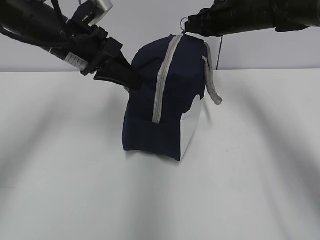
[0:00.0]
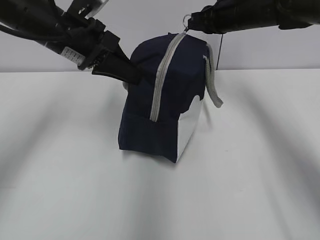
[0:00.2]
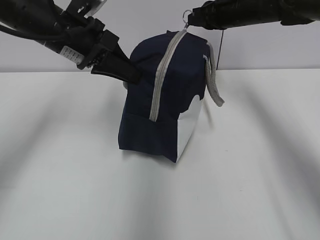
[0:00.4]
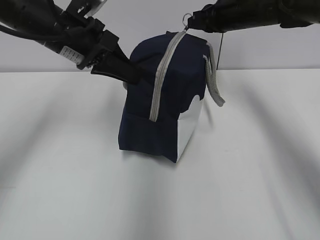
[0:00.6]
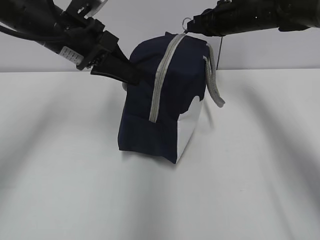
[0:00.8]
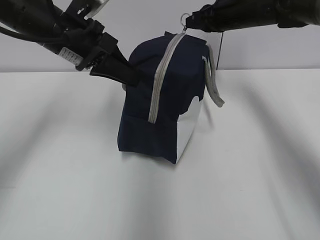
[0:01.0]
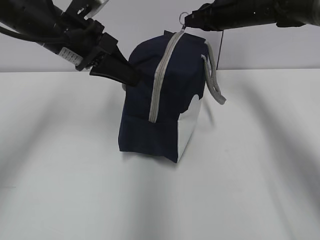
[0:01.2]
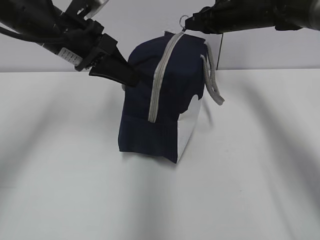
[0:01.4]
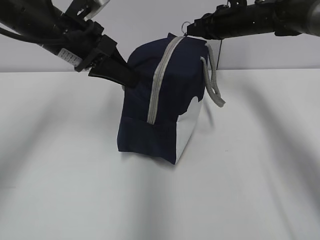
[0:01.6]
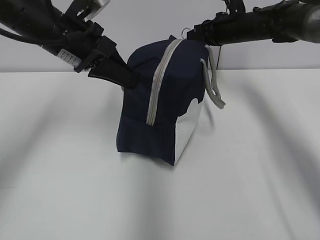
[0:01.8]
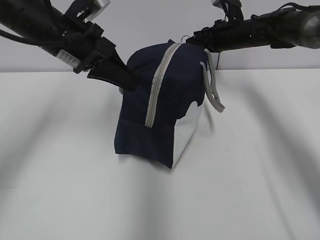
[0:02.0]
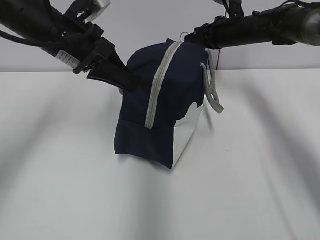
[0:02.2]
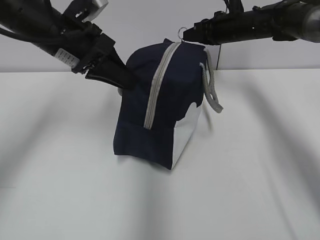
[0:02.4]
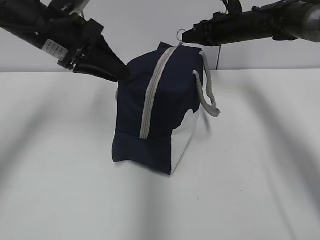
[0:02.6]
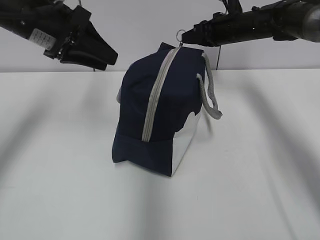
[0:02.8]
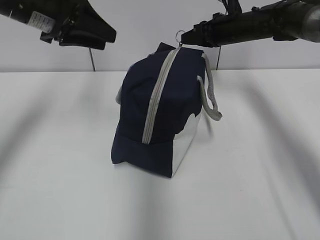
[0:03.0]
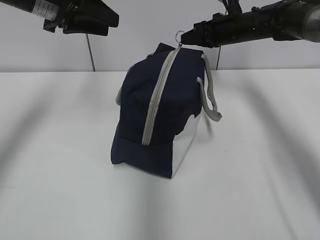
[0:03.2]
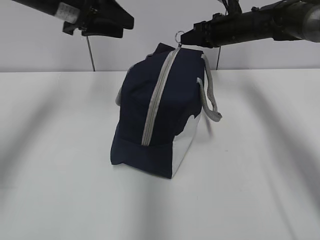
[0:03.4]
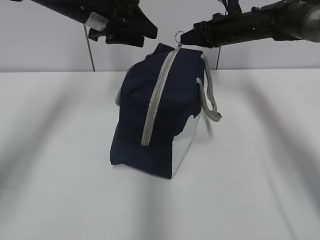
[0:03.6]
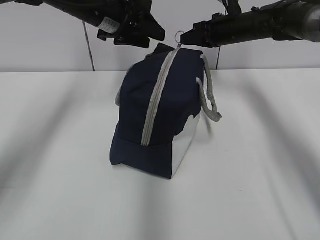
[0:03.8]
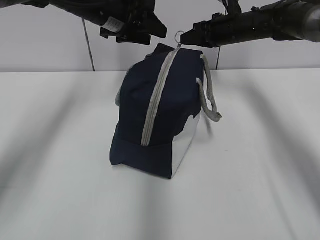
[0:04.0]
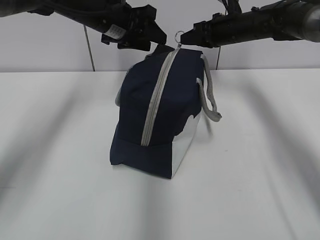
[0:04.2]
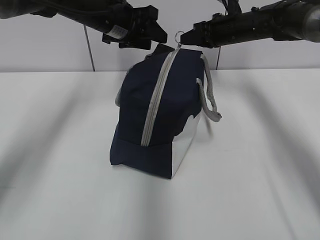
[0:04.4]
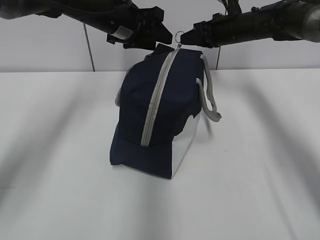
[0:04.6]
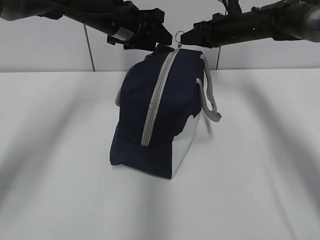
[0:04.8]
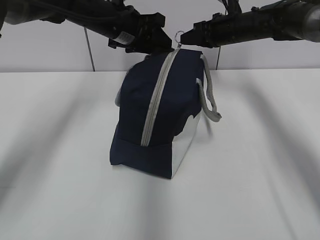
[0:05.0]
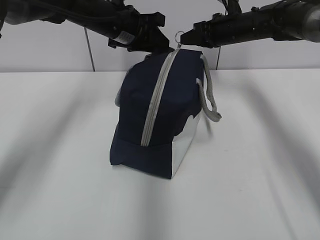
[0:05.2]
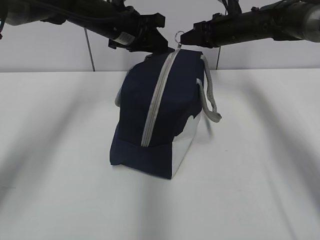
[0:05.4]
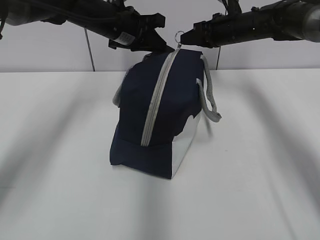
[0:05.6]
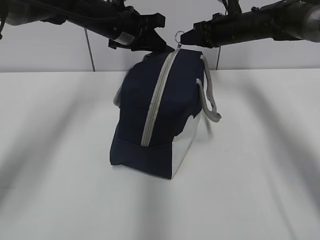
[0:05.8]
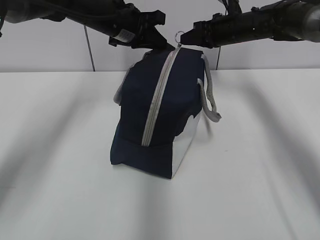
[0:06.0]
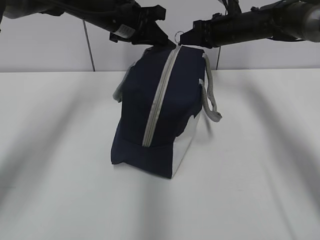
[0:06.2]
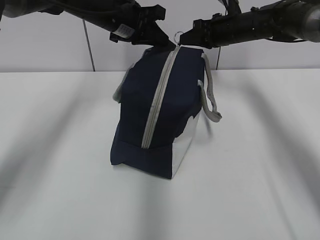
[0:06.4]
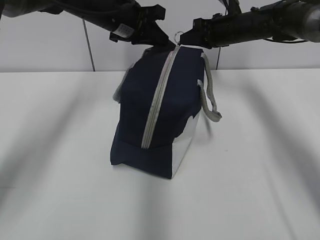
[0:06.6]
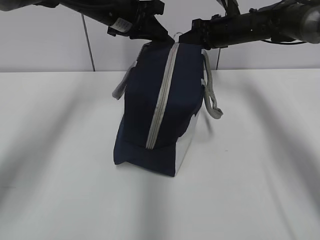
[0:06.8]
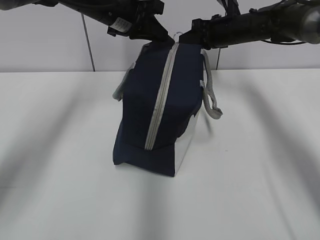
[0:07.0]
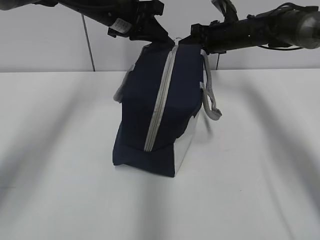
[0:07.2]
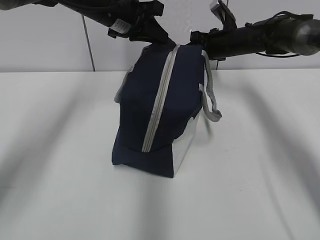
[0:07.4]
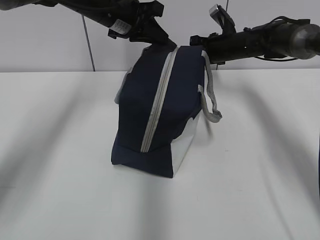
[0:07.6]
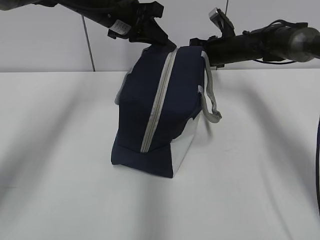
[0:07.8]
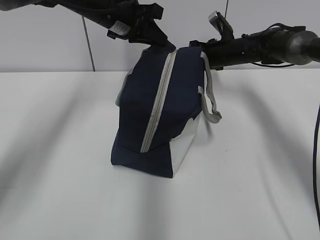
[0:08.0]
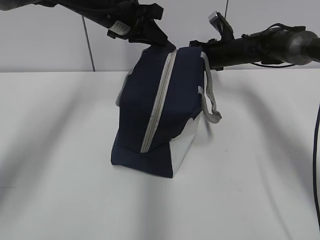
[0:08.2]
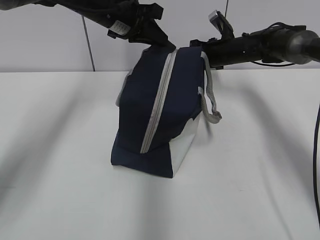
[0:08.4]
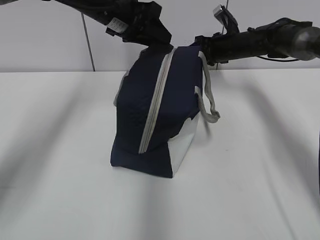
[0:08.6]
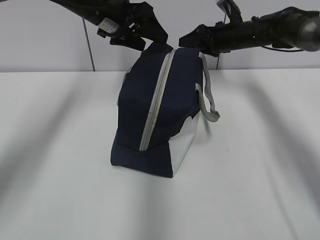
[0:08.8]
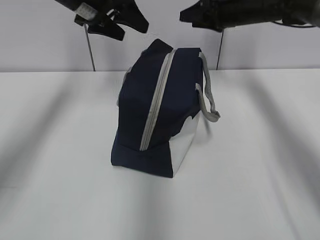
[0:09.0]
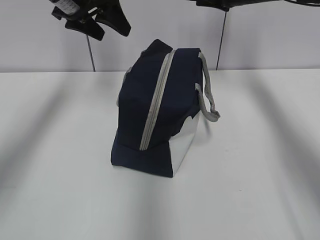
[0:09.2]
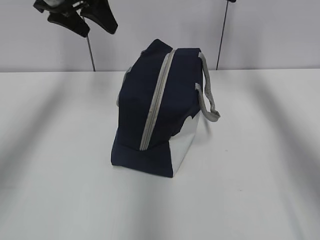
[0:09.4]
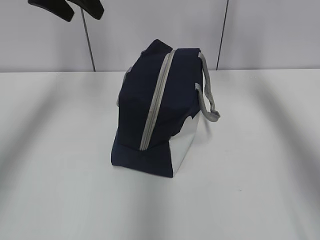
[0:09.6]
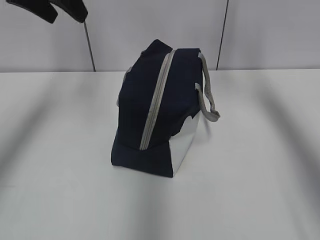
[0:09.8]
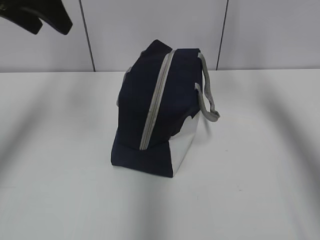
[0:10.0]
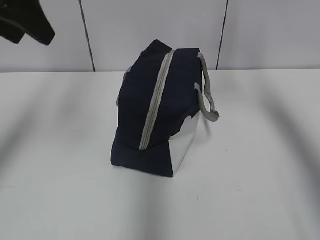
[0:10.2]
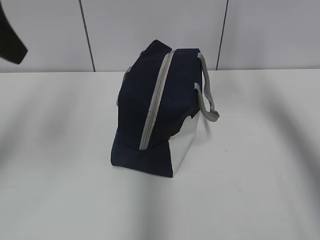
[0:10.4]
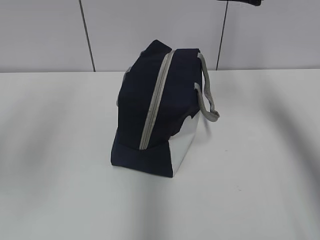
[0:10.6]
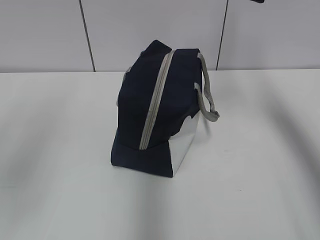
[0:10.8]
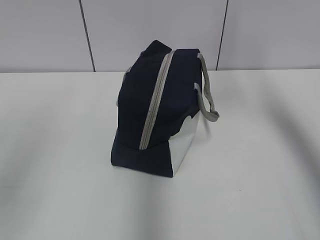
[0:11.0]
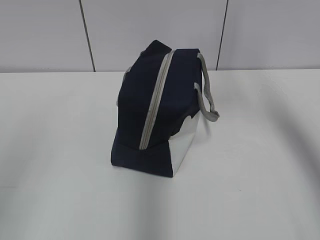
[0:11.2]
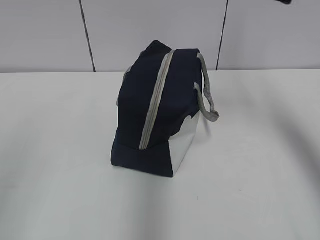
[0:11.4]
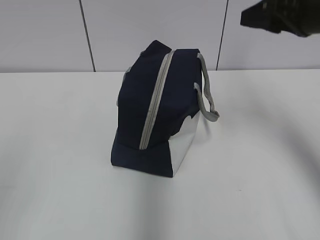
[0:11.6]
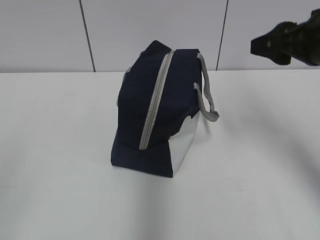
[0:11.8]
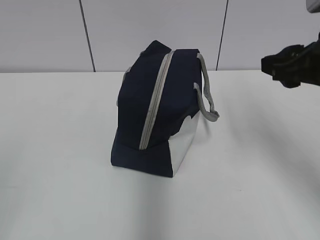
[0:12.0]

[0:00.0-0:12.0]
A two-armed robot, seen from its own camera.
Step, 0:00.0 to 0:02.4: Grab the lunch bag with your left hand.
Step, 0:02.6 to 0:08.2: Pull the zipper with your right hand.
0:00.0 to 0:01.6: The grippers make only small movements.
0:01.6 to 0:03.0: The left gripper moves some 5 cm, and opens up.
0:03.0 to 0:04.4: The left gripper goes approximately 15 cm forward and to the right.
0:04.4 to 0:06.0: The left gripper closes its fingers.
0:06.0 to 0:07.6: There are only small adjustments of the grippers.
0:07.6 to 0:09.0: The right gripper shifts approximately 5 cm upward, and opens its fingers. Meanwhile the left gripper ends up approximately 5 cm from where it was, and opens its fingers.
0:09.0 to 0:10.4: The right gripper moves backward and upward, about 15 cm, while the left gripper heads backward and to the left, covering some 25 cm.
0:10.4 to 0:12.0: The left gripper moves backward and downward, some 25 cm. Meanwhile the right gripper shifts some 15 cm backward and downward.

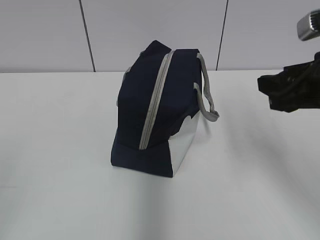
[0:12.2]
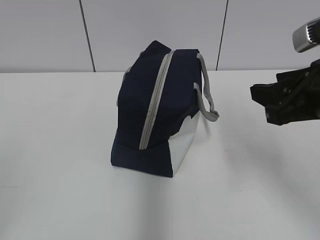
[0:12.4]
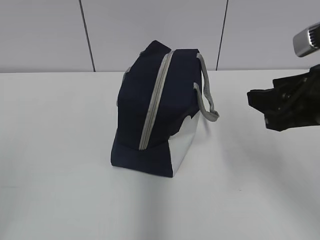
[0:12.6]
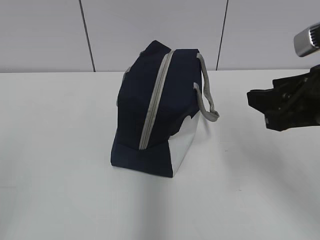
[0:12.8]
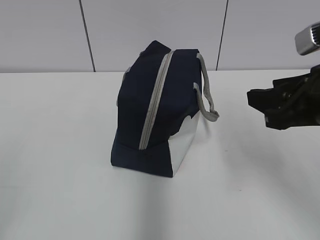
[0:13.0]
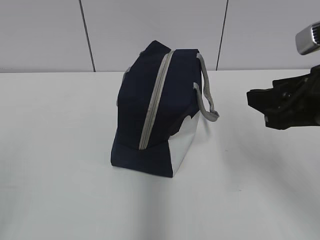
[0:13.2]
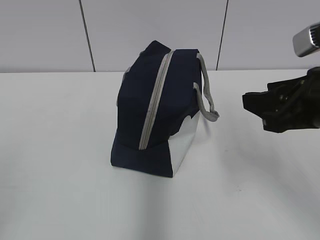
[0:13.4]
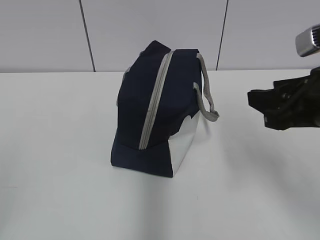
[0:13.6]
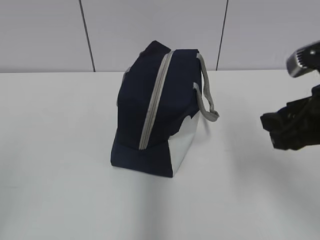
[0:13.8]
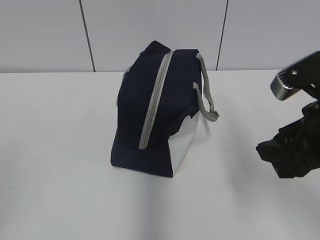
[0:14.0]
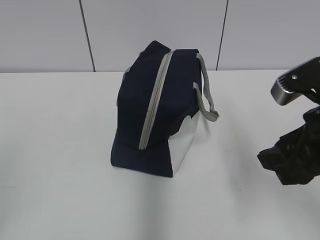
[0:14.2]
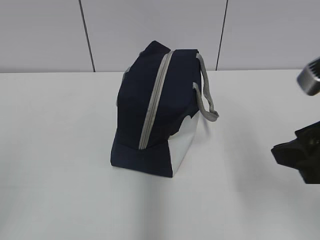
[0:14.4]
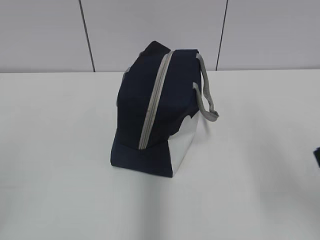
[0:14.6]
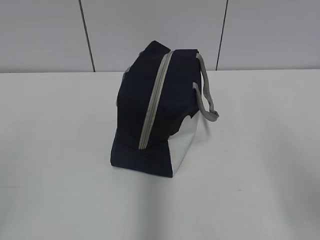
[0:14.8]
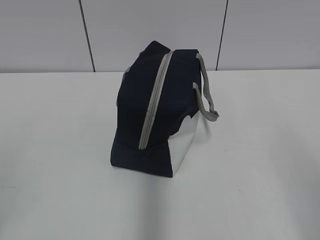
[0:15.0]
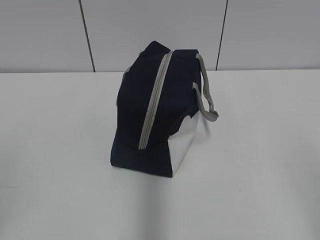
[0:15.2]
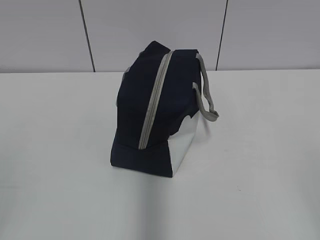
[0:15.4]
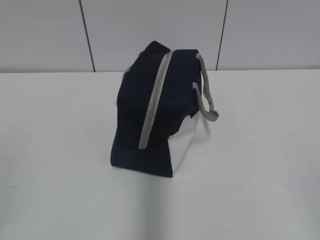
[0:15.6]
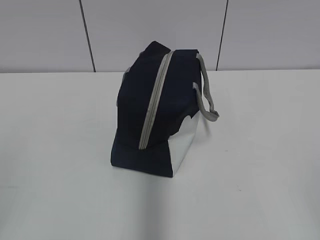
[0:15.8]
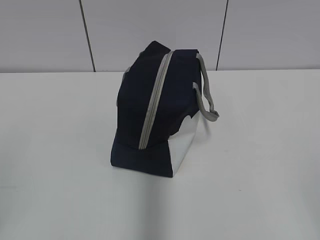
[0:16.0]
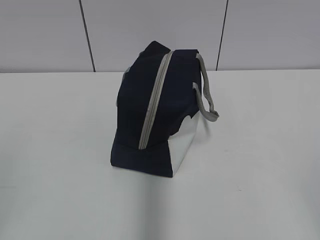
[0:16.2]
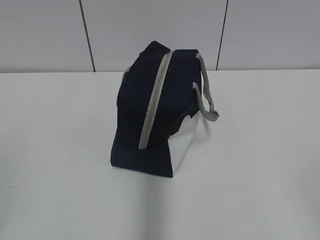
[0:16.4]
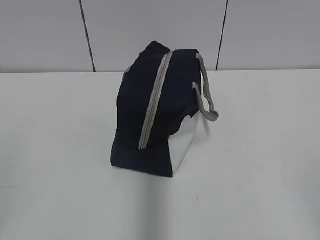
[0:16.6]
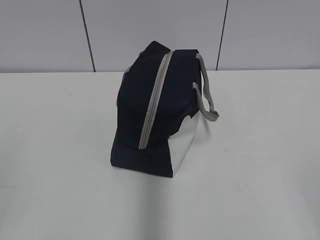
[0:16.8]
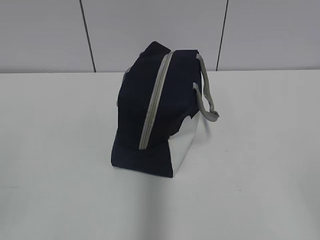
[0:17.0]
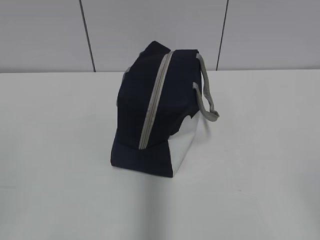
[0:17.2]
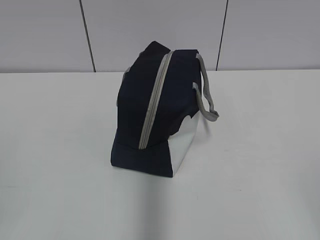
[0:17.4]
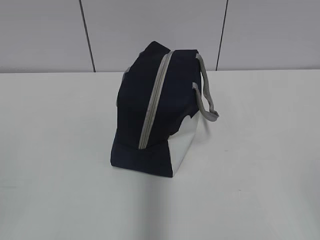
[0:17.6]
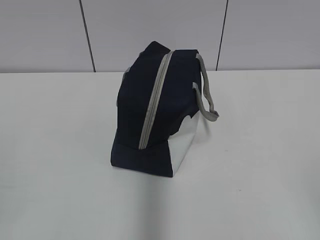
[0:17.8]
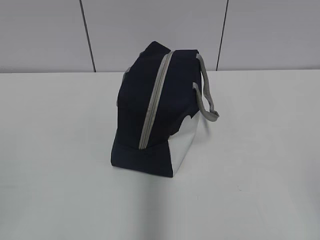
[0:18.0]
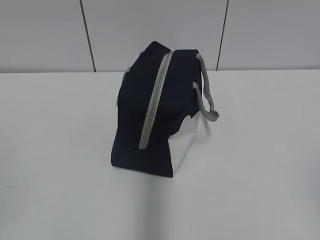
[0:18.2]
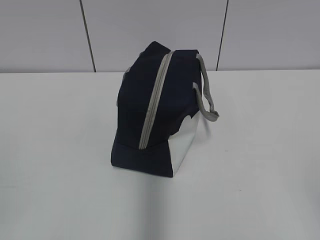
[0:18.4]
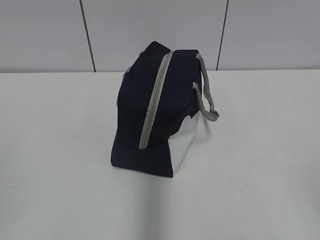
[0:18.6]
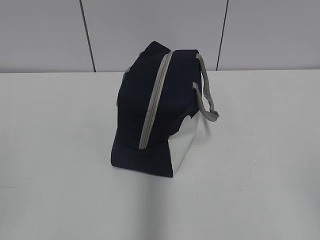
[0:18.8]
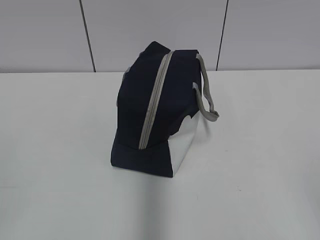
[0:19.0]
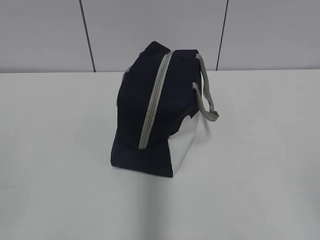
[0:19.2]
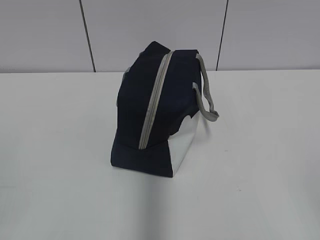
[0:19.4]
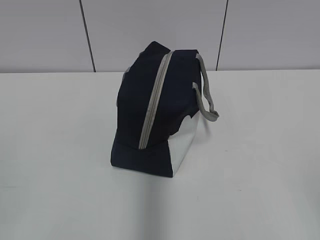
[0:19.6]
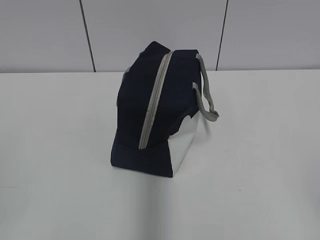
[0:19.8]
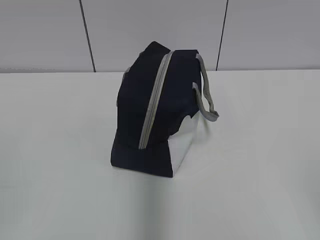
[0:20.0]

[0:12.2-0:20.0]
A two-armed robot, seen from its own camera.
0:12.2 to 0:13.8: There are only small adjustments of the grippers.
0:13.8 to 0:15.4: The right gripper shifts roughly 20 cm backward.
0:18.4 to 0:20.0: Neither gripper changes place.

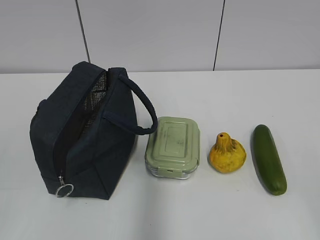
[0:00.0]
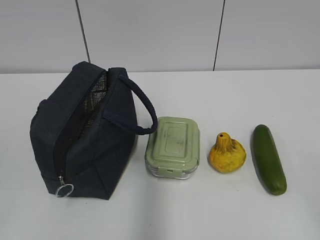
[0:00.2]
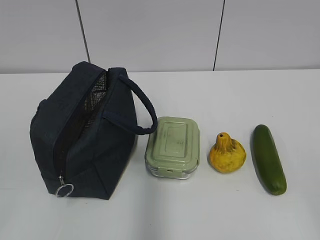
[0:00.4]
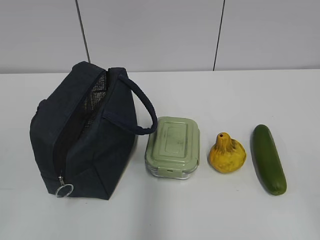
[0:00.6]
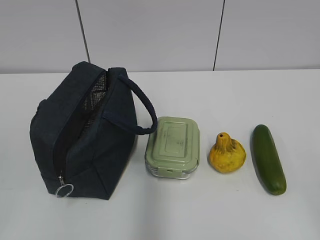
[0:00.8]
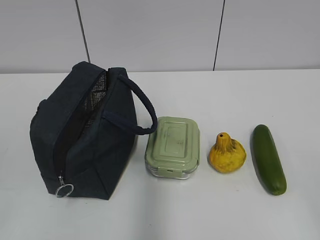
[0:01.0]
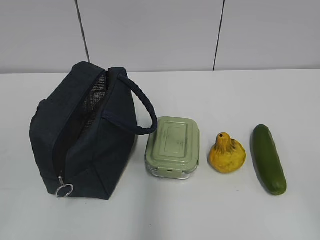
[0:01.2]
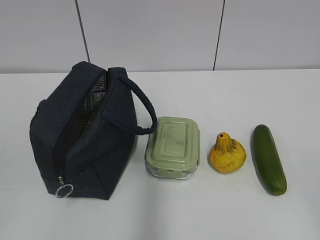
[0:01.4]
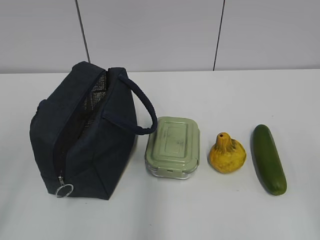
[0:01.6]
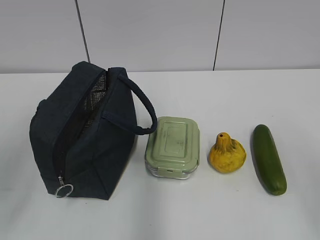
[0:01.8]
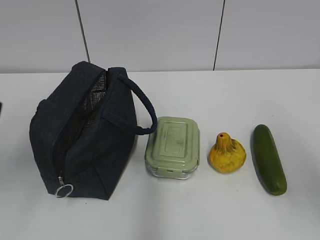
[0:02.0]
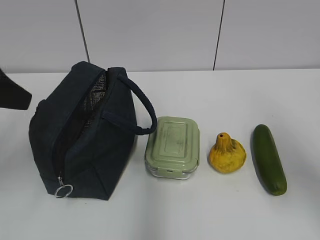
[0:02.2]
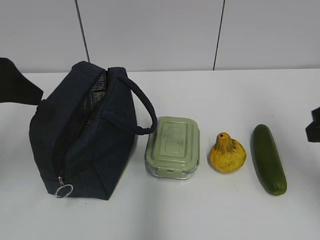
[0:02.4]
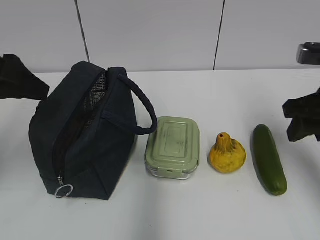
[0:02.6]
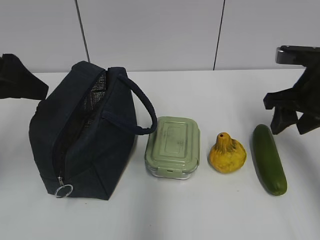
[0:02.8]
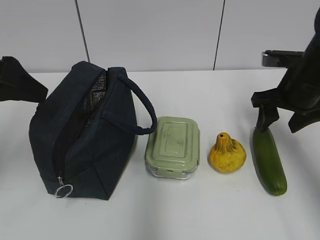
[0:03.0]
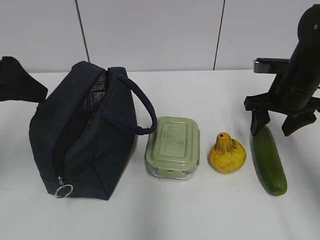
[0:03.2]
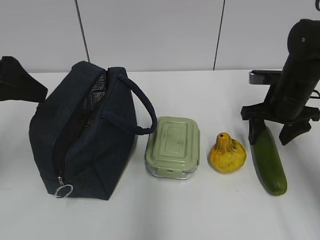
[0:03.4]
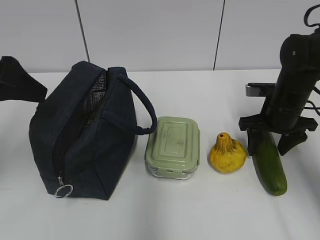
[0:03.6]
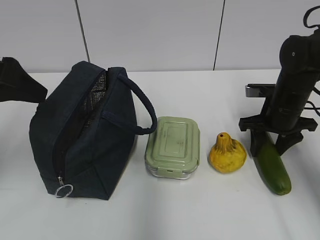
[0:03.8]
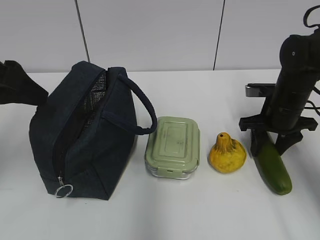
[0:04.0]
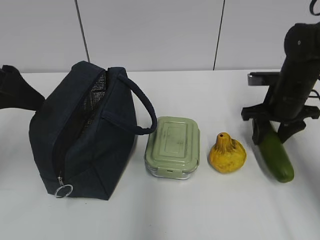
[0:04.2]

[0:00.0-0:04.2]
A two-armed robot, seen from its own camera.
0:01.4 to 0:02.8: Both grippers travel together forward, some 30 cm. The left gripper opens.
0:02.8 to 0:04.2: The right gripper heads forward, covering some 5 cm.
